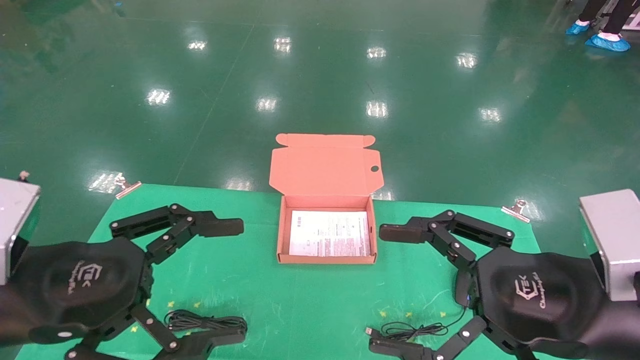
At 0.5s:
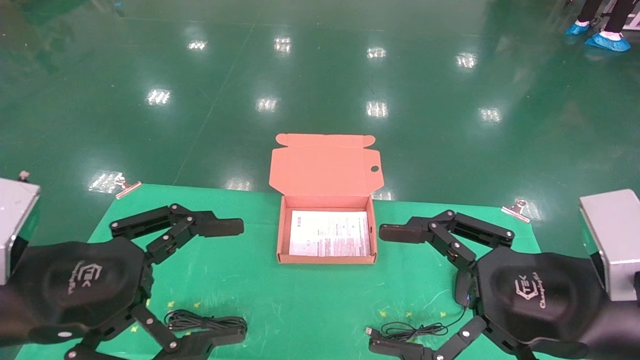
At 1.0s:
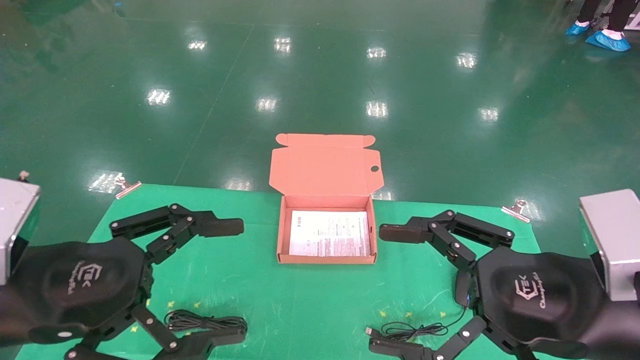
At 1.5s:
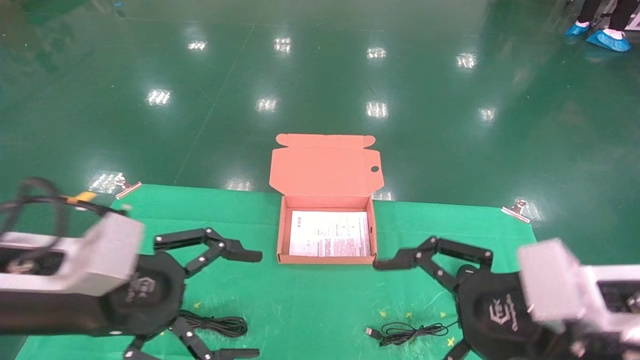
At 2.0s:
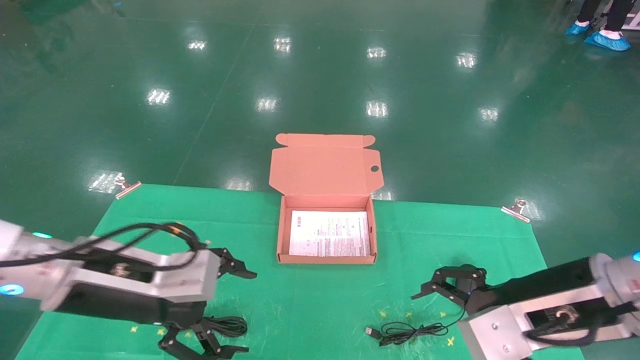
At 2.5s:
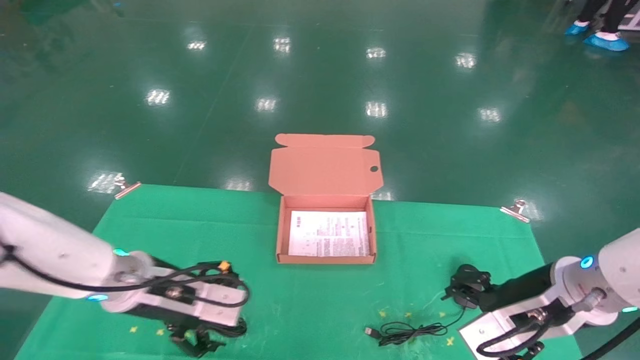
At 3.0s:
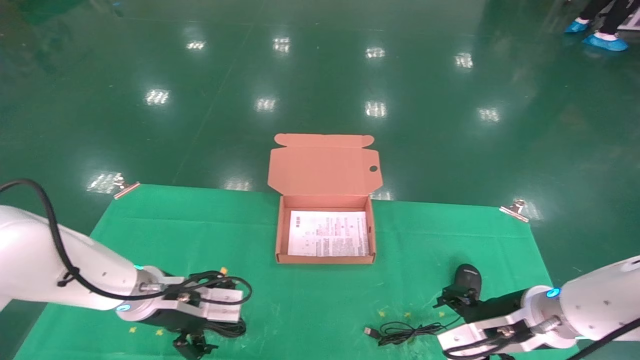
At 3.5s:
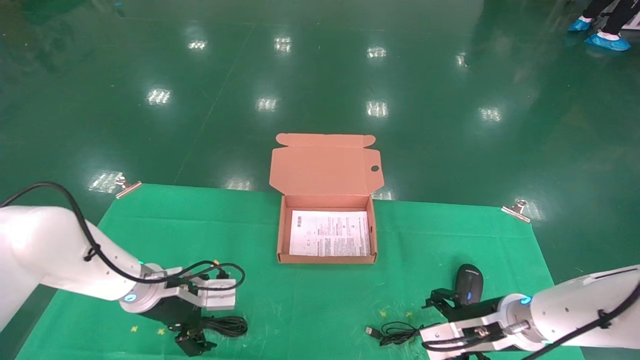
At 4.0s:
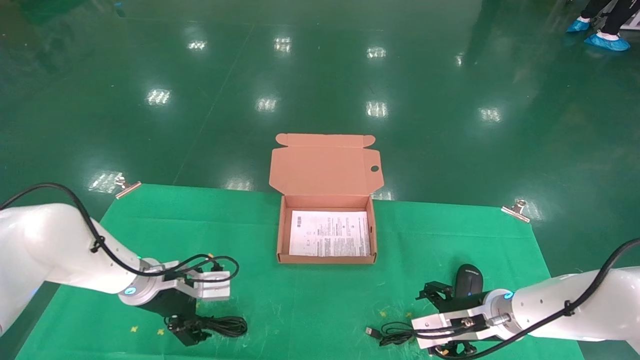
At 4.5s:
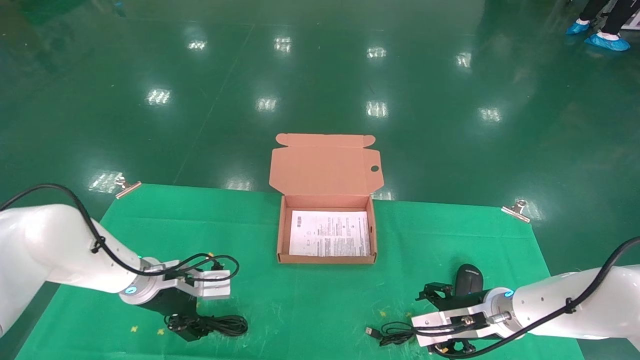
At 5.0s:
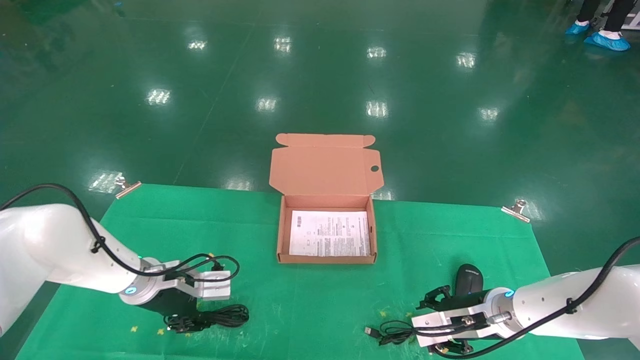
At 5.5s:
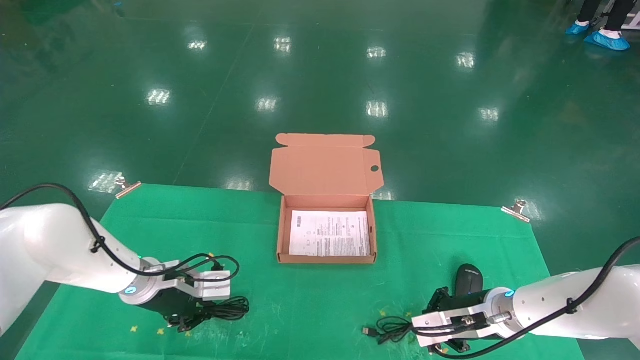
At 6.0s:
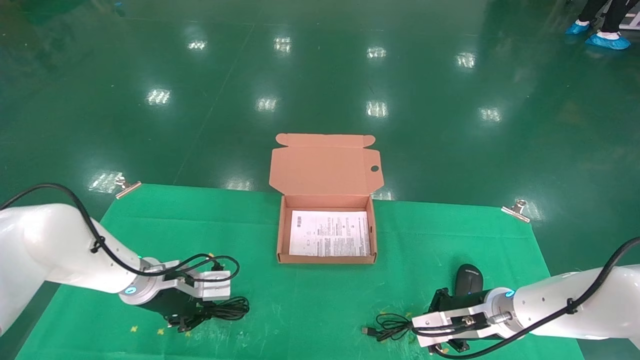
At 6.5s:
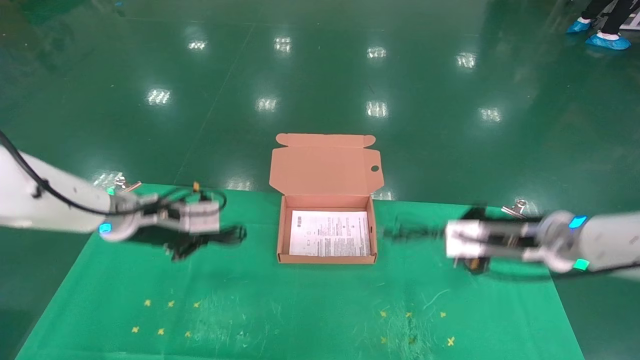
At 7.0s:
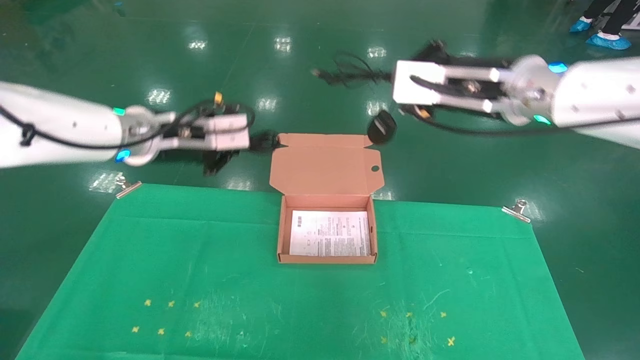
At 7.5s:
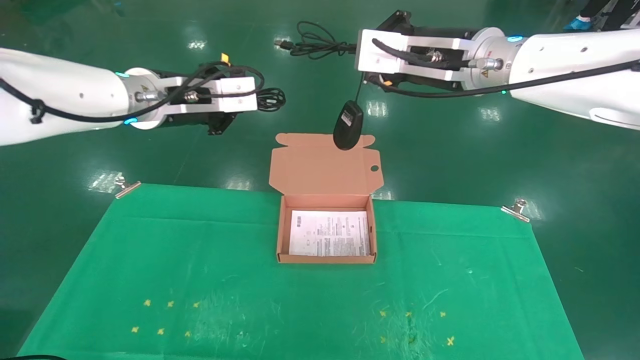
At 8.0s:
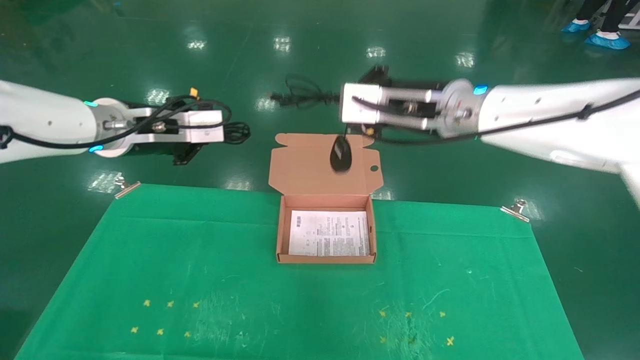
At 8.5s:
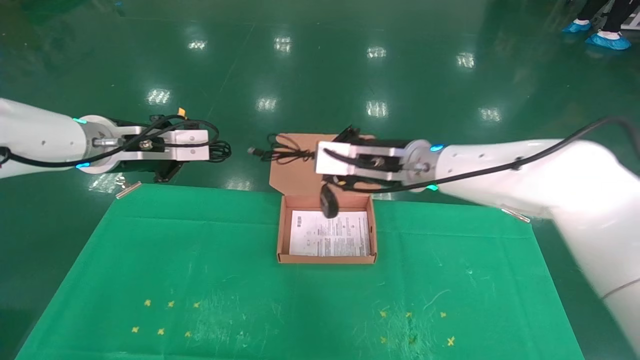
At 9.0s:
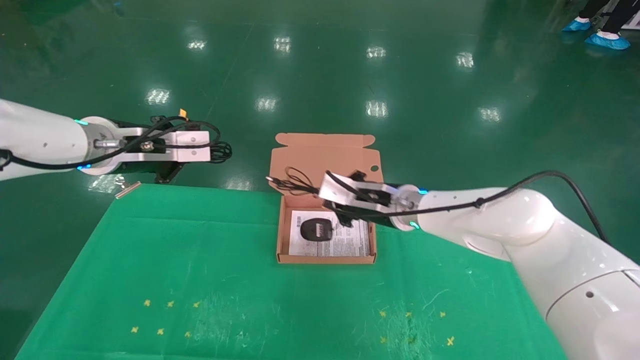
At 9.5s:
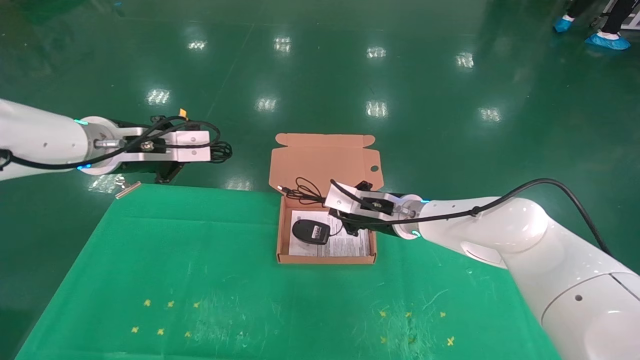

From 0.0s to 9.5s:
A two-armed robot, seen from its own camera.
Task of the whole recording: grasp data cable left put into box grasp mouse right put into box.
Step, from 1.5s to 5.5s: Grab and pick up both the mouse and power cord from the accessory packaging area at the same time.
From 0.0s to 2.0s: The two grippers go approximately 10 cm forward.
From 2.0s to 4.0s: The left gripper heads forward and downward, covering roughly 20 cm; the right gripper travels downward and forward by some 20 cm.
From 4.0s to 5.5s: The right gripper closes up, while the left gripper closes its fingers.
From 5.5s to 7.5s: Both grippers move upward, approximately 30 cm.
From 7.5s to 9.5s: The right gripper goes some 25 cm downward and forward, while the left gripper goes roughly 10 cm to the left and downward.

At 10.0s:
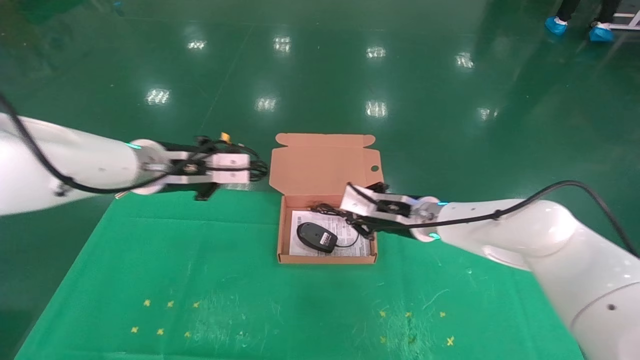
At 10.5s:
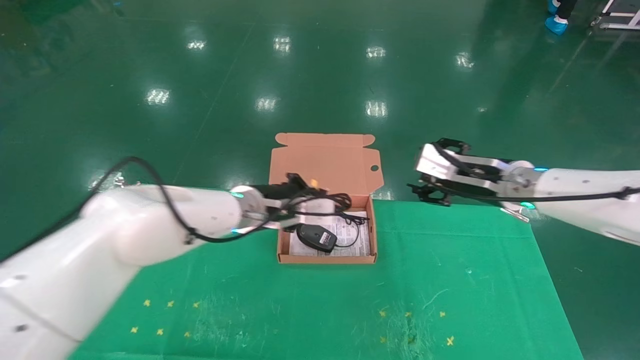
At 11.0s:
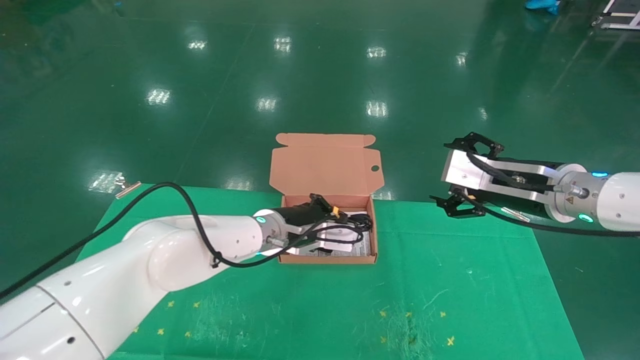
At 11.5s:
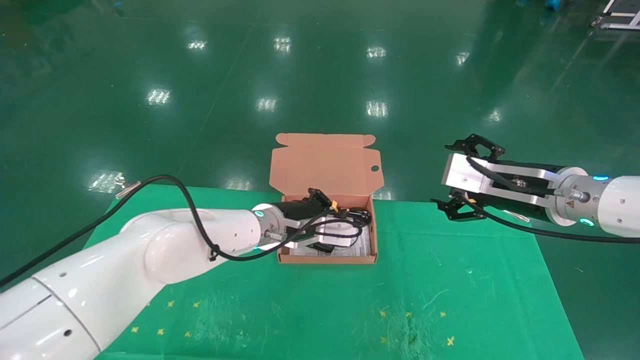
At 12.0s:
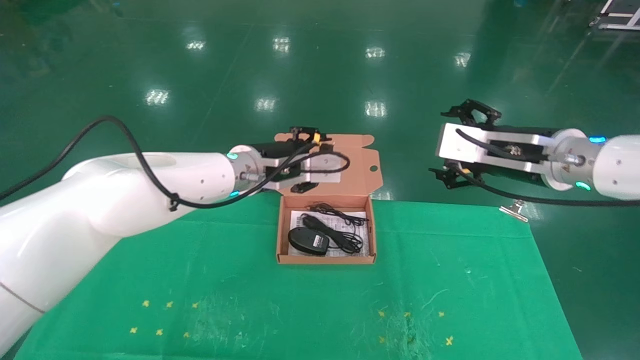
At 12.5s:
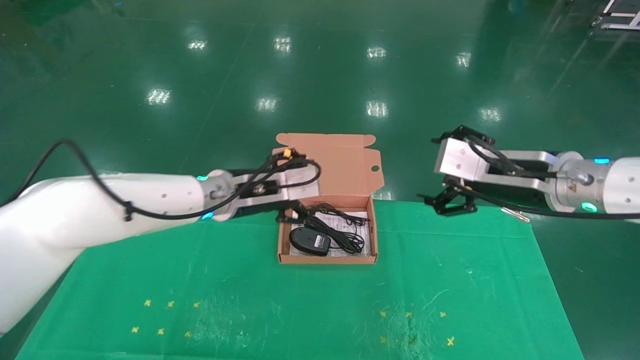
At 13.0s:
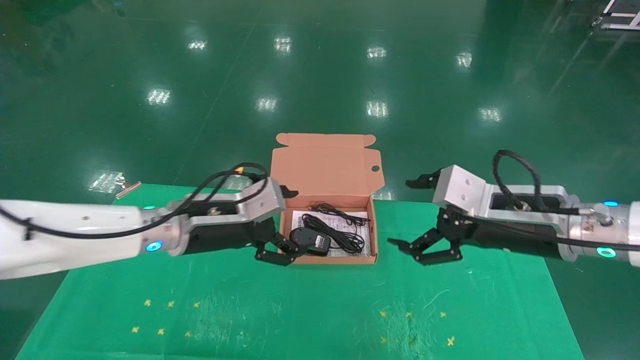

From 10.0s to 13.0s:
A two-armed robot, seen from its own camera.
Task of the whole recording: grasp data cable left put into box grasp mouse right put into box.
From 10.0s to 11.5s: The left gripper shifts roughly 15 cm to the right and downward, while the right gripper is displaced to the right, backward and upward by some 15 cm, and opens up.
From 11.5s to 13.0s: The left gripper goes some 10 cm to the left and backward, and opens, while the right gripper moves approximately 5 cm.
